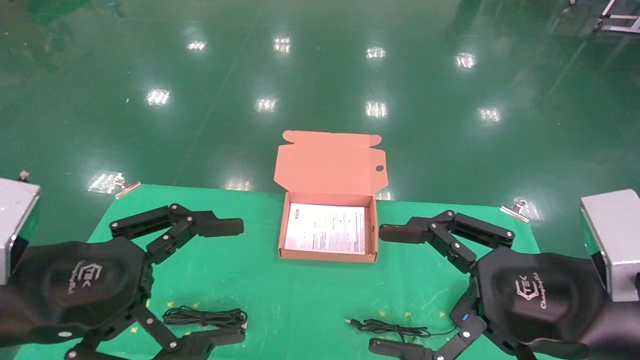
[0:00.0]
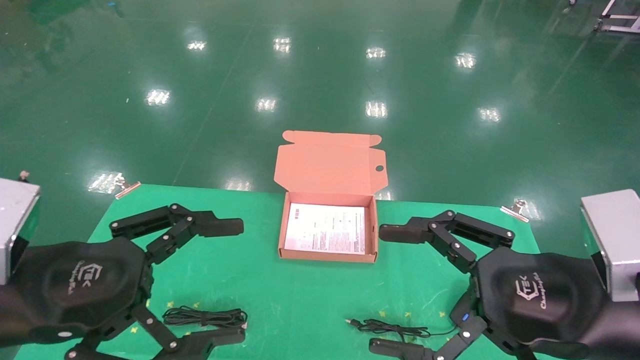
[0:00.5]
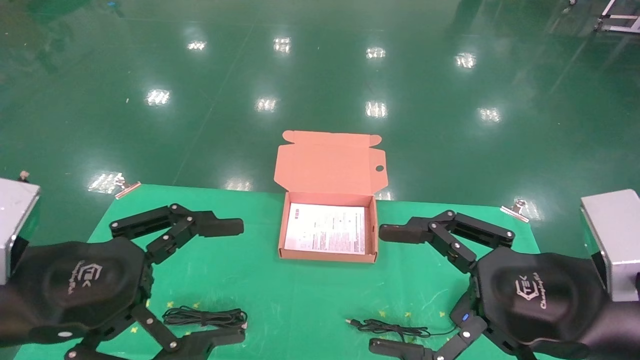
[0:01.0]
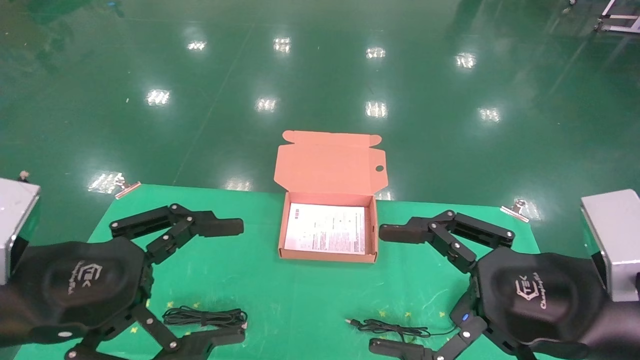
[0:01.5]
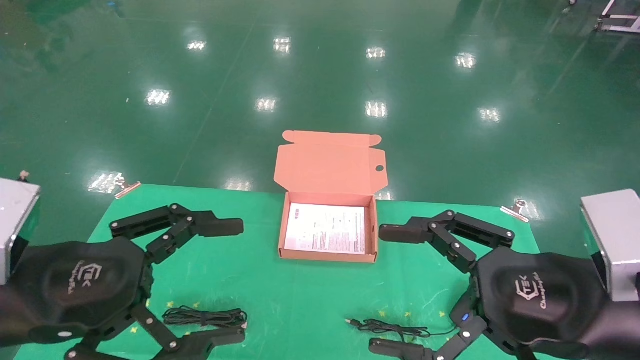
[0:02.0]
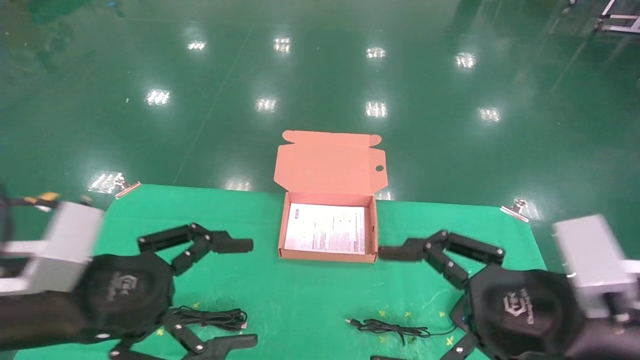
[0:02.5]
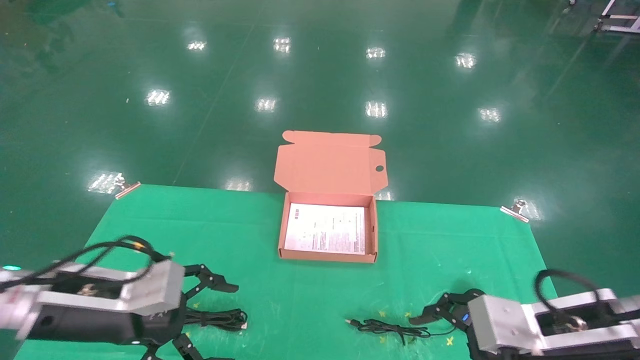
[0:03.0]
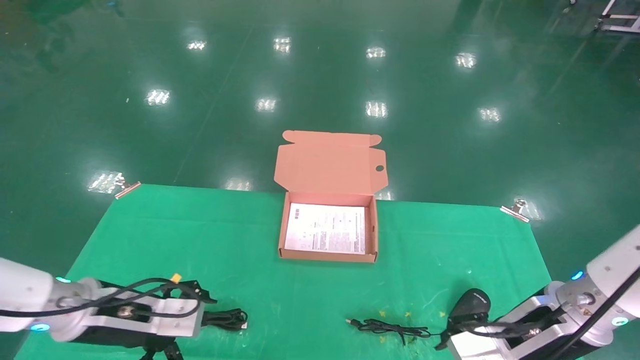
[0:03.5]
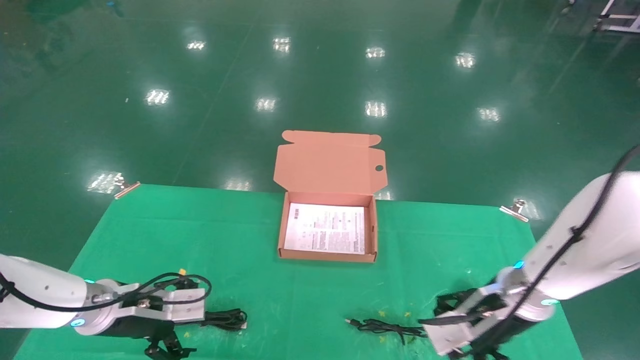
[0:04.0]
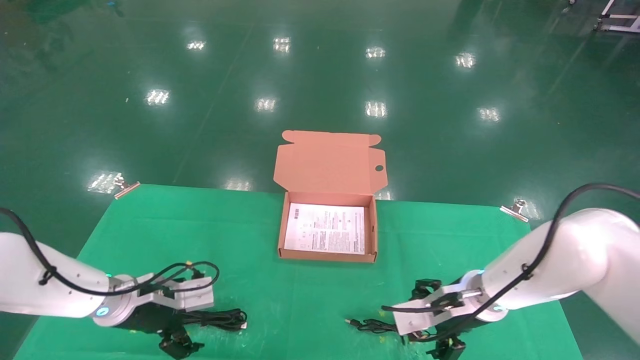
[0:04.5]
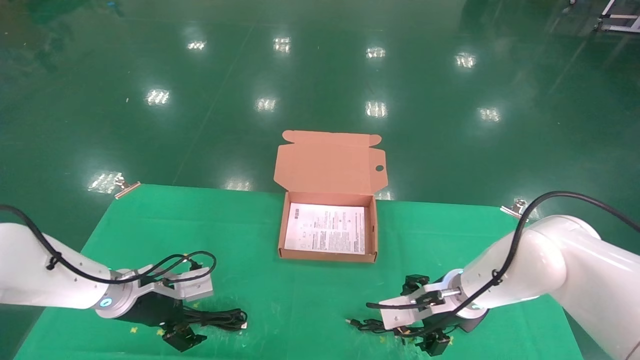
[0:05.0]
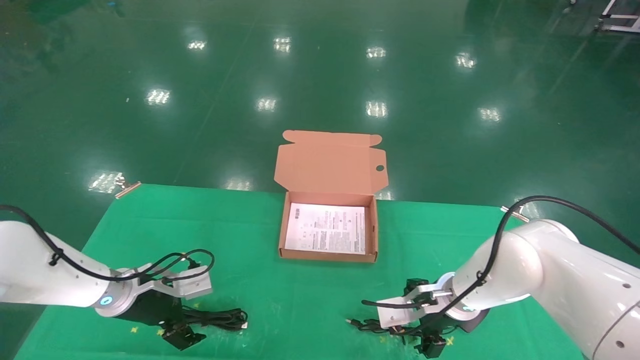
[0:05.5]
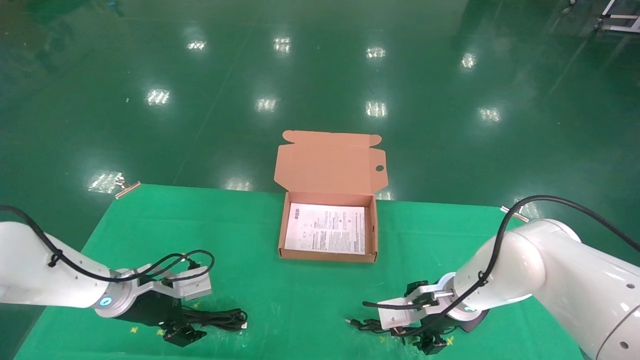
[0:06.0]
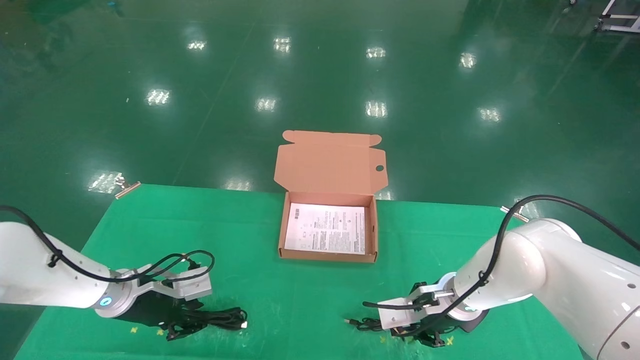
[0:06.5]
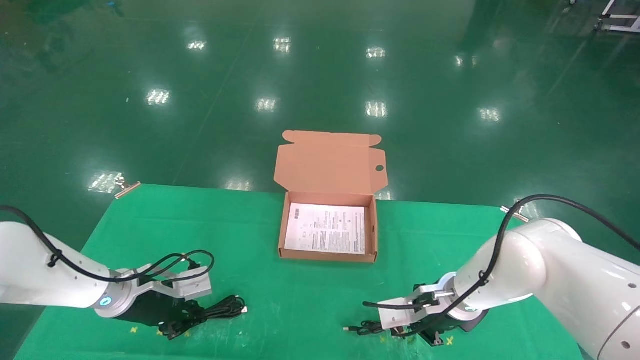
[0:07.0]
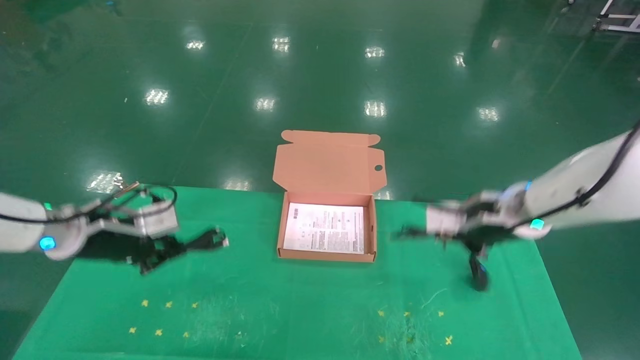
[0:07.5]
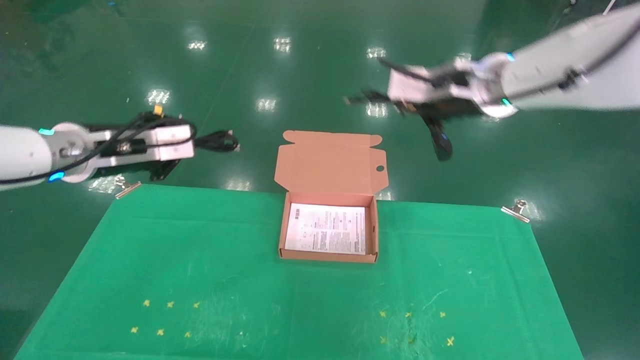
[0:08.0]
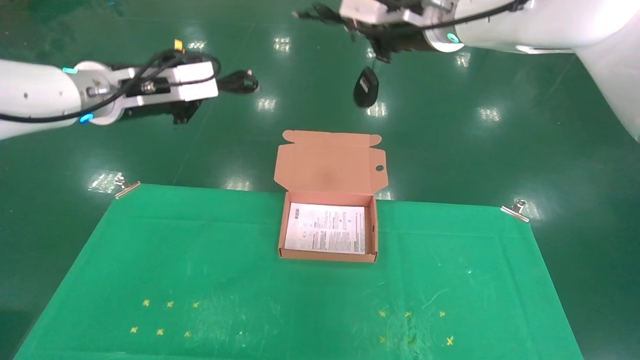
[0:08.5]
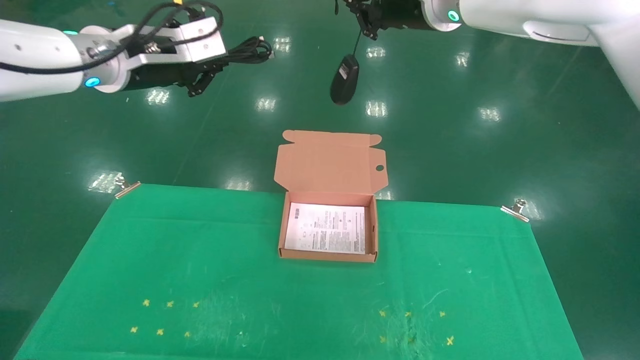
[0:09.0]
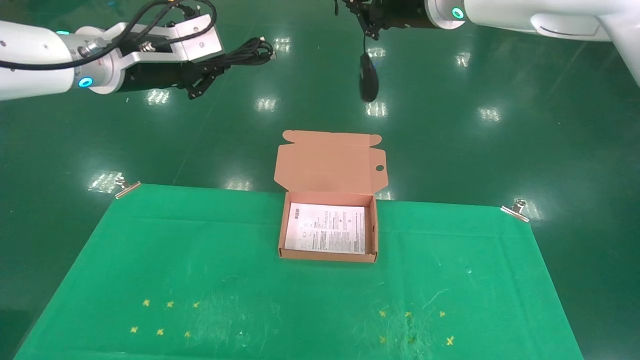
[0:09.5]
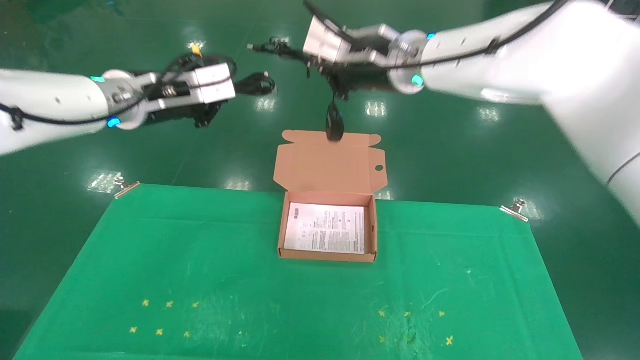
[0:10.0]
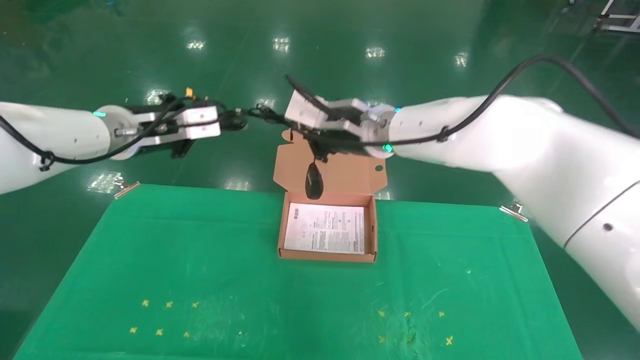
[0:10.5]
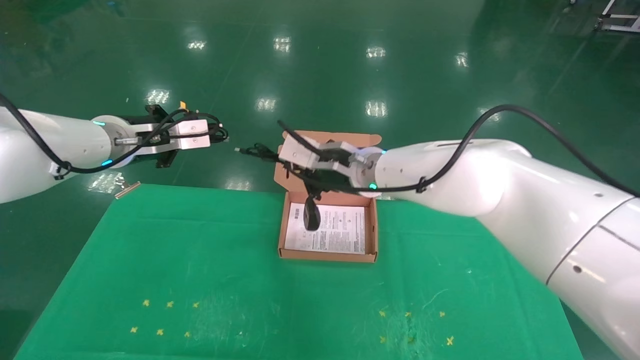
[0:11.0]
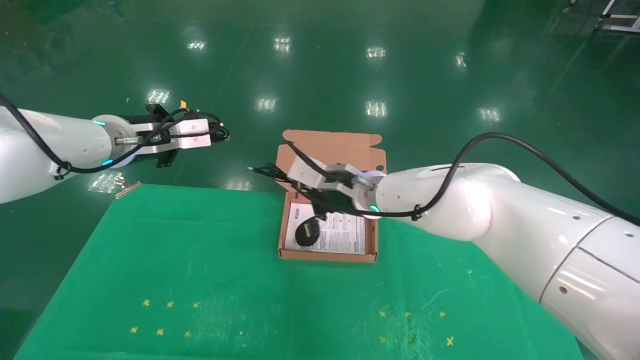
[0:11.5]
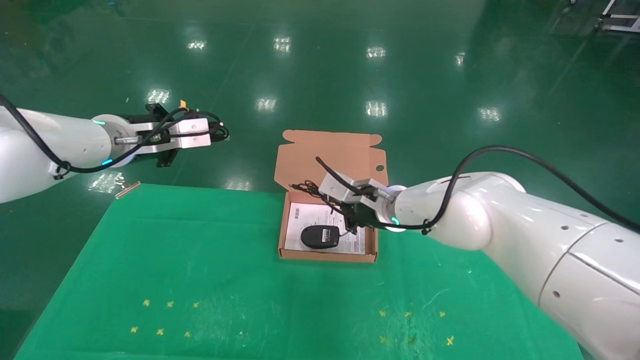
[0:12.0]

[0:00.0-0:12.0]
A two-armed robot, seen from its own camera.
Task of the whole recording: grasp data cable left put into box grasp mouse right put into box.
Step, 3.0 to 7.5 s: Grab and pick up both the mouse and power cord from the accessory packaging area at the same time.
0.0 to 2.0 s: Both grippers stay put.
2.0 to 4.0 s: The grippers both shift forward and downward by roughly 20 cm.
4.0 to 6.0 s: The right gripper shifts approximately 10 cm forward and to the left. Meanwhile the left gripper moves forward, about 5 cm.
6.0 to 8.0 s: The grippers both shift upward by some 25 cm. The right gripper closes up, while the left gripper closes up.
8.0 to 10.0 s: The left gripper goes roughly 10 cm upward and to the right. Meanwhile the right gripper heads to the left, covering some 10 cm.
10.0 to 12.0 s: The right gripper is displaced downward by approximately 20 cm. Meanwhile the left gripper shifts approximately 5 cm downward.

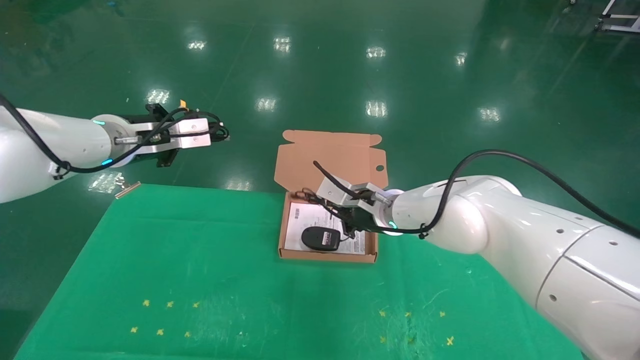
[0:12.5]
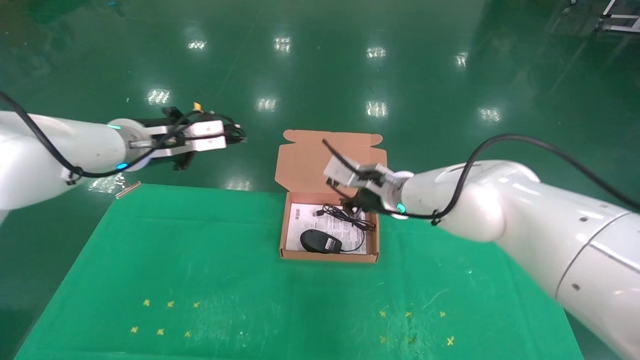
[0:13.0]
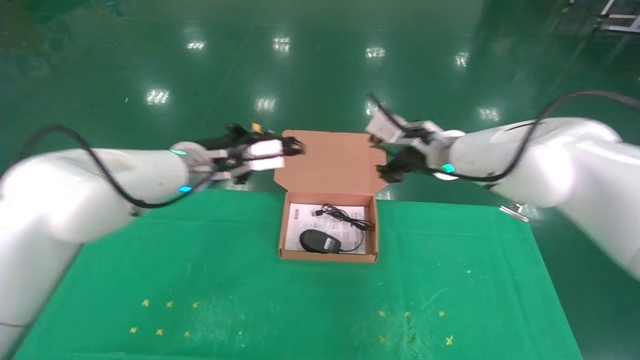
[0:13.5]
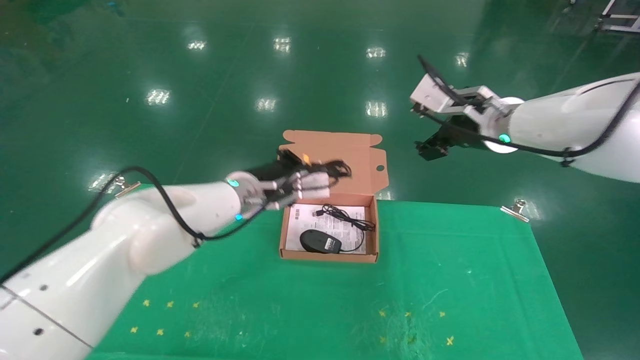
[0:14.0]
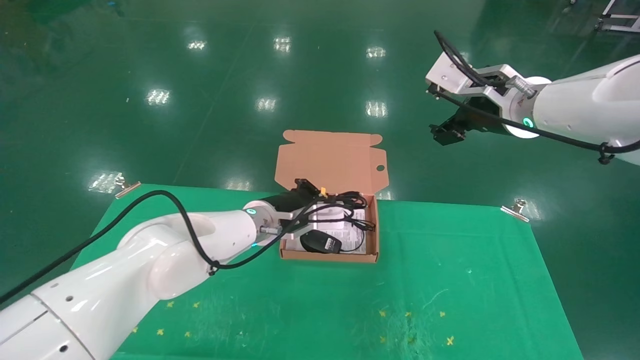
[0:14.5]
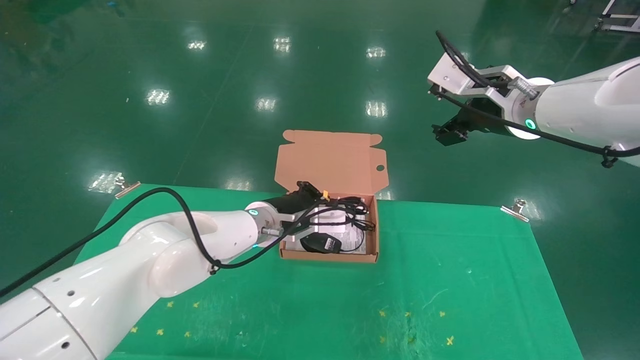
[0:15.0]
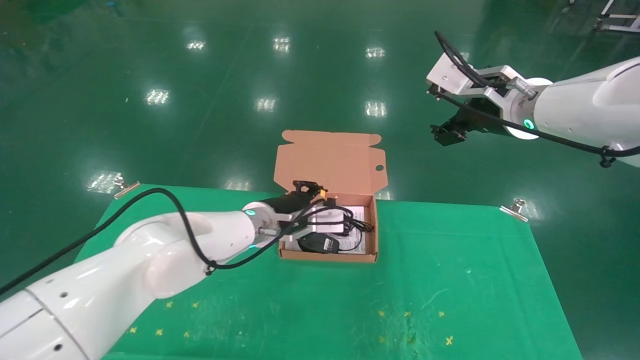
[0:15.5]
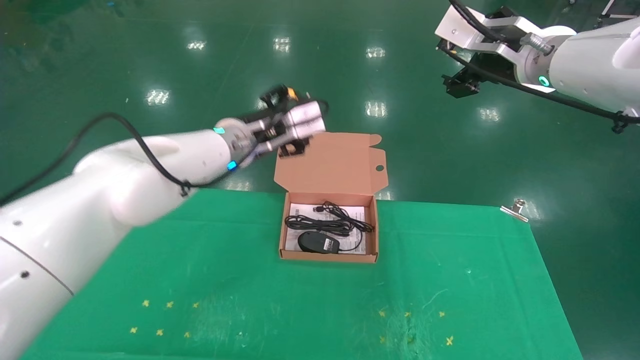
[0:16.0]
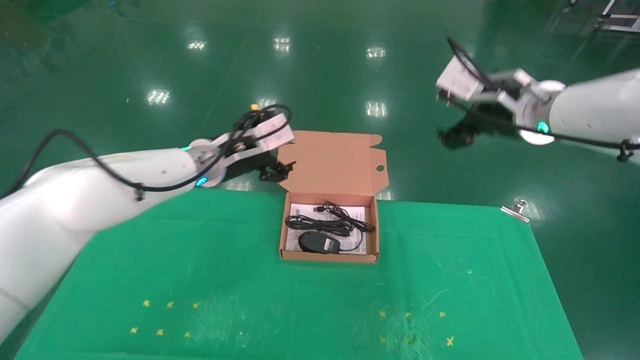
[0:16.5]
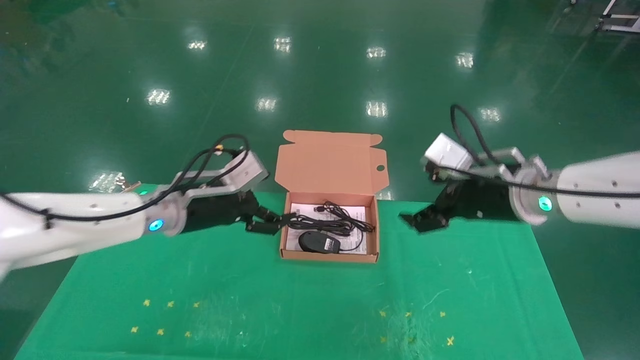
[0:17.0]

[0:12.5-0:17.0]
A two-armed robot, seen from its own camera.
Task of the whole recording: grasp data cable left put into box grasp mouse right put into box.
Step, 12.5 to 15.5 s: Place the mouse and power cord into the box.
12.5 to 14.5 s: The right gripper goes some 20 cm upward and to the right, and opens its fingers, while the left gripper goes approximately 25 cm to the right and downward.
14.5 to 17.0 s: The left gripper is displaced to the left and backward by about 15 cm, and opens. The right gripper travels downward by some 10 cm.

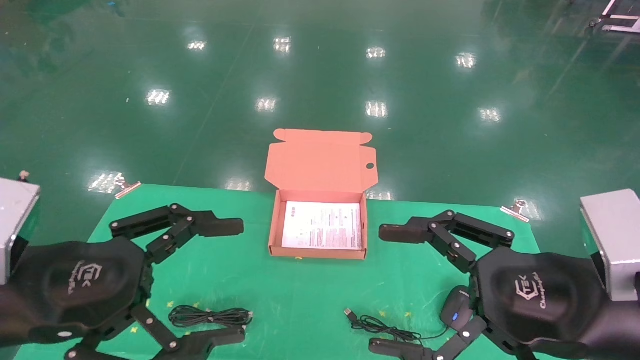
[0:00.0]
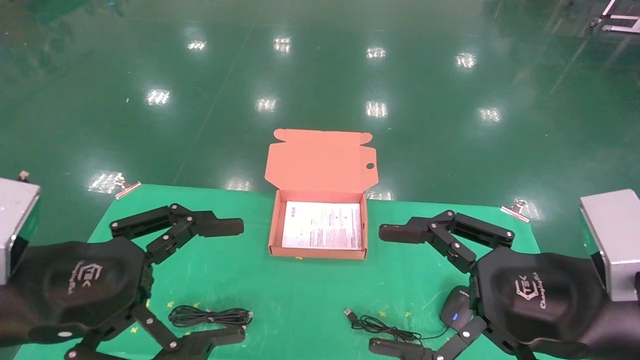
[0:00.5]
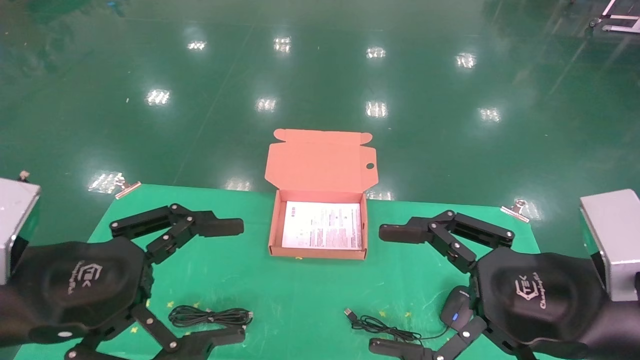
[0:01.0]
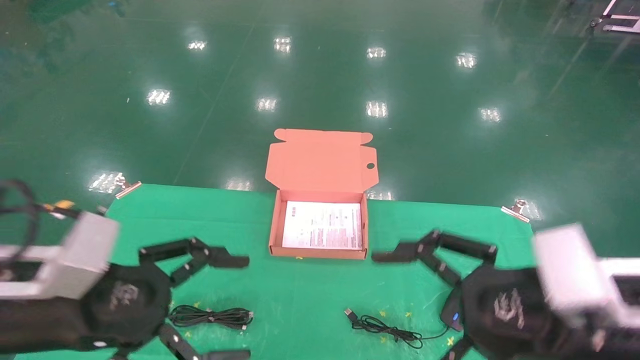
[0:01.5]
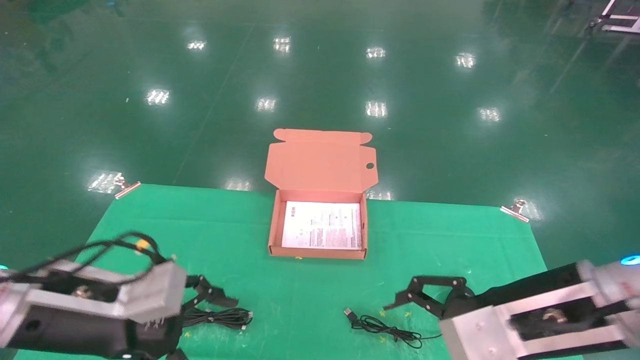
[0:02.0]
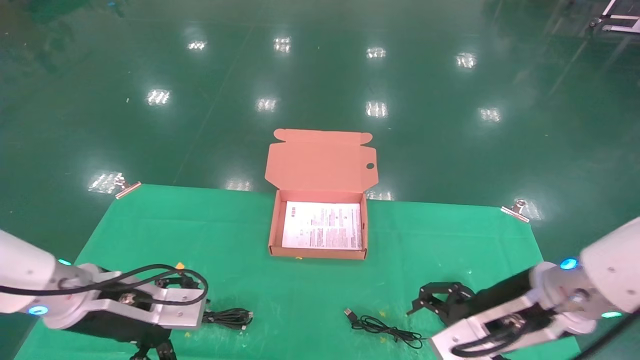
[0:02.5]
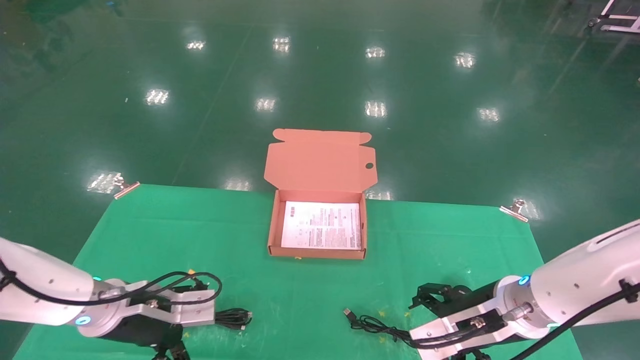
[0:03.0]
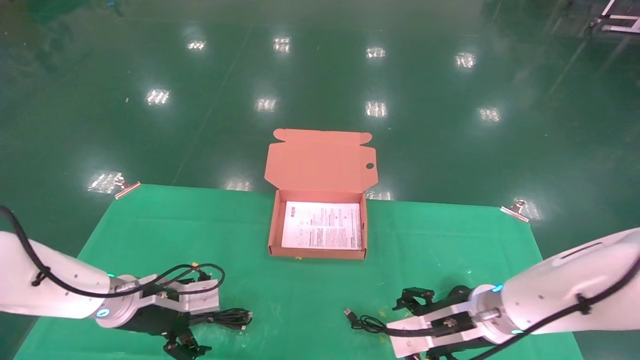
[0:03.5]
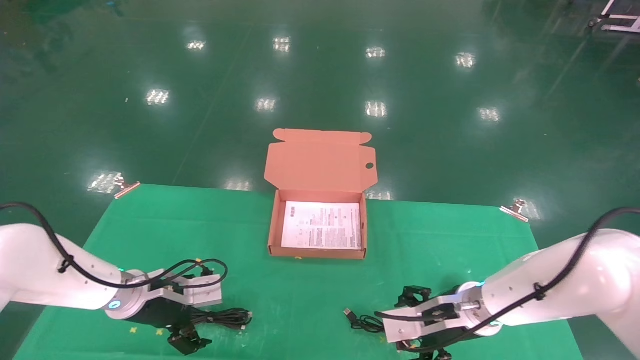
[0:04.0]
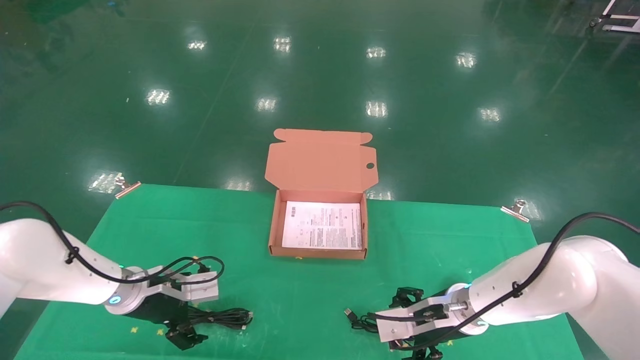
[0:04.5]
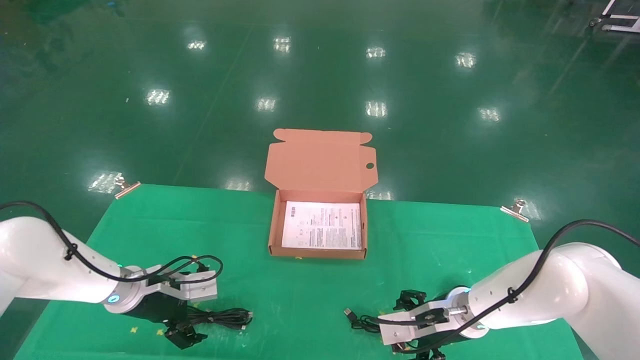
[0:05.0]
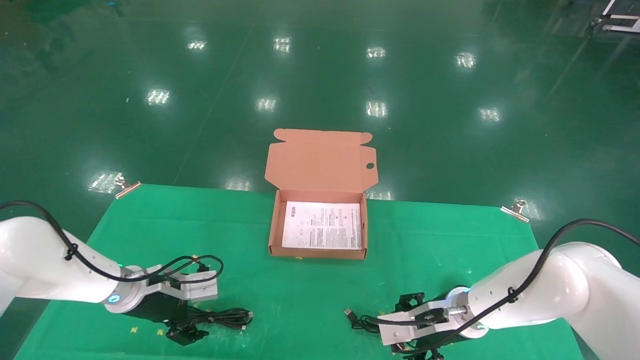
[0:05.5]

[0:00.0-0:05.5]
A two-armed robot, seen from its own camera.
Task of the whole recording: grasp data cable left put into box grasp mouse right put into box.
0.0 to 2.0 s: The left gripper heads forward and downward, covering approximately 10 cm; the right gripper is displaced forward by roughly 5 cm.
2.0 to 3.5 s: The two grippers go about 15 cm forward and downward.
3.5 to 5.5 s: The right gripper moves about 5 cm.
